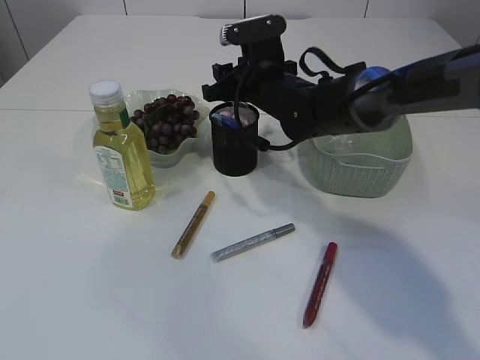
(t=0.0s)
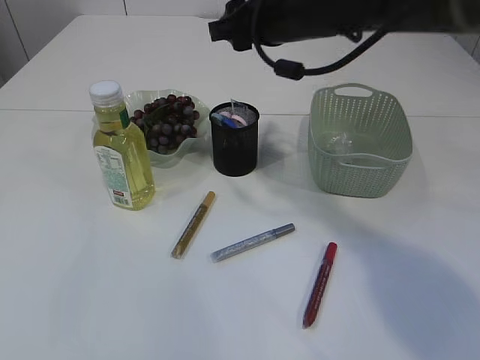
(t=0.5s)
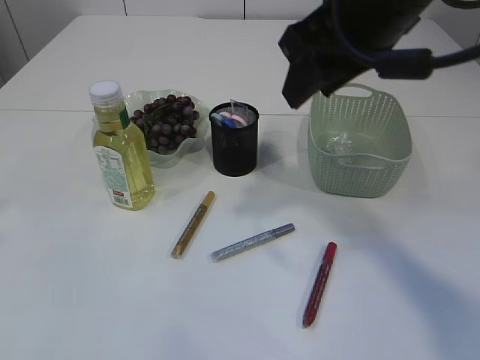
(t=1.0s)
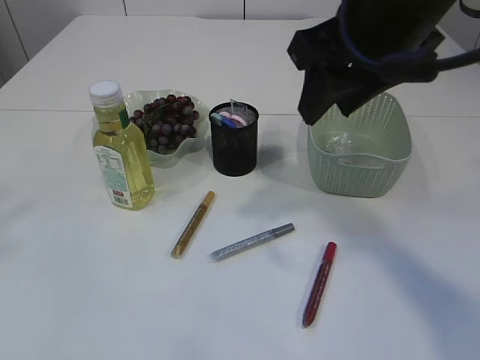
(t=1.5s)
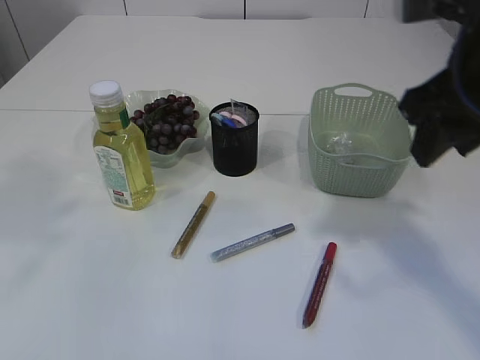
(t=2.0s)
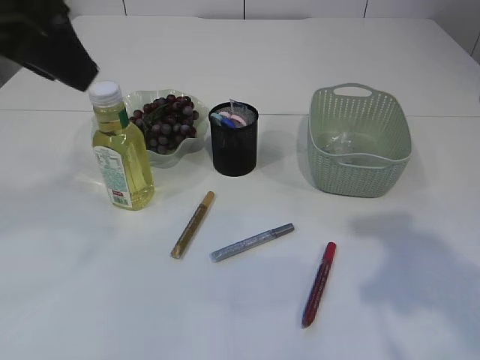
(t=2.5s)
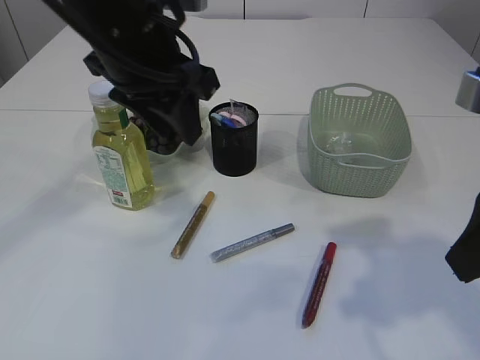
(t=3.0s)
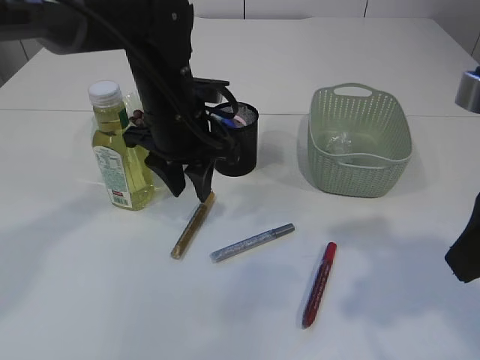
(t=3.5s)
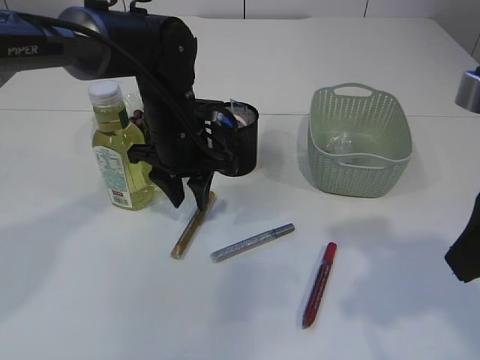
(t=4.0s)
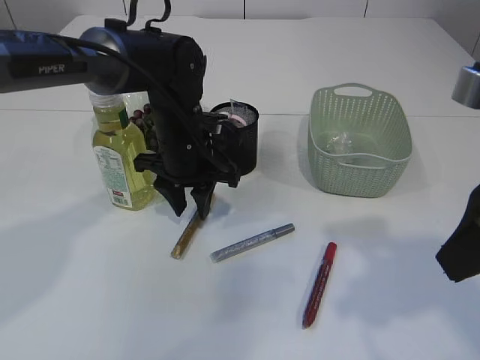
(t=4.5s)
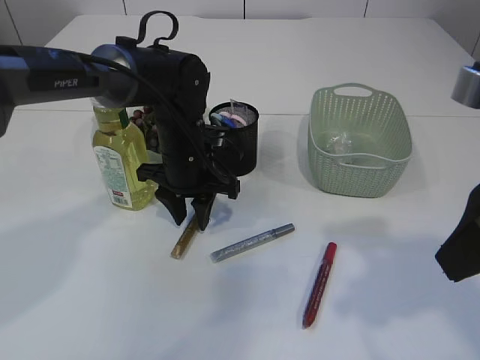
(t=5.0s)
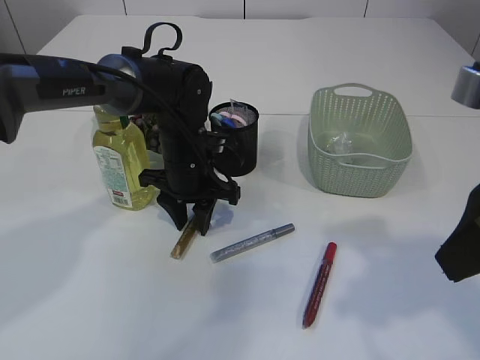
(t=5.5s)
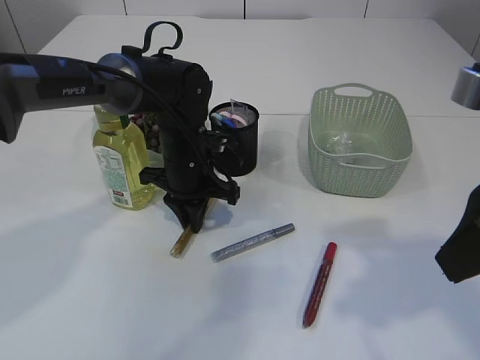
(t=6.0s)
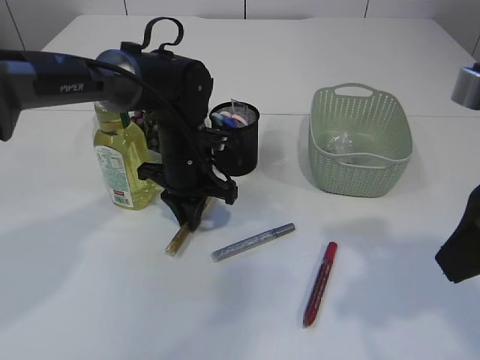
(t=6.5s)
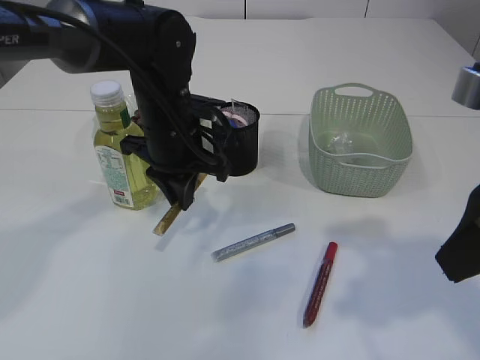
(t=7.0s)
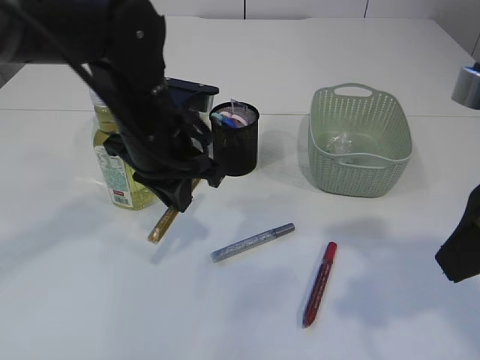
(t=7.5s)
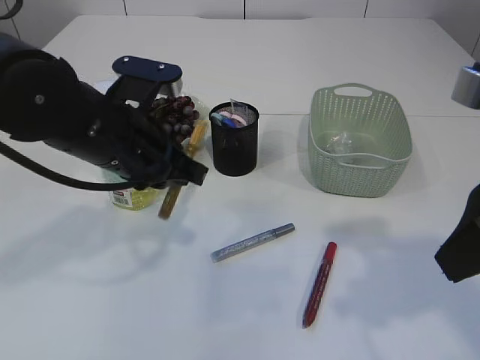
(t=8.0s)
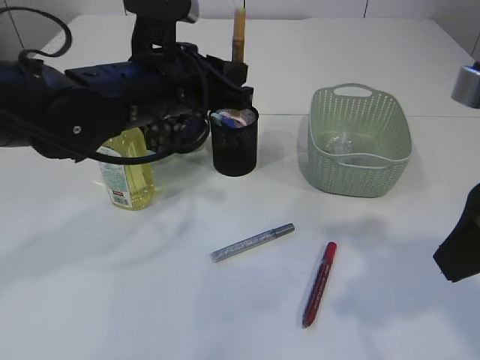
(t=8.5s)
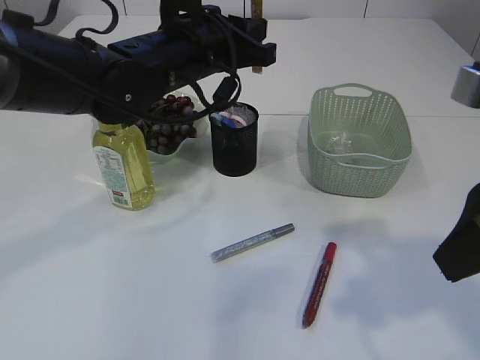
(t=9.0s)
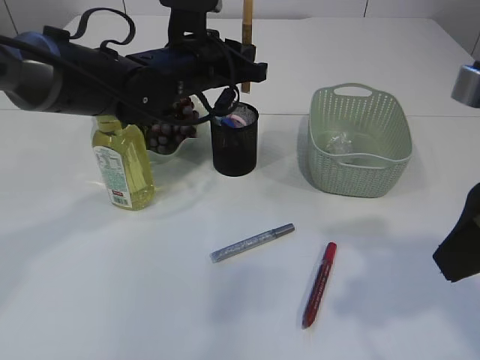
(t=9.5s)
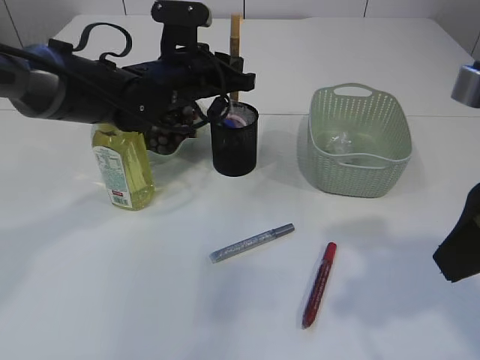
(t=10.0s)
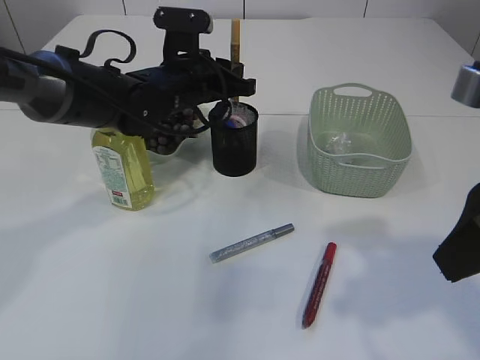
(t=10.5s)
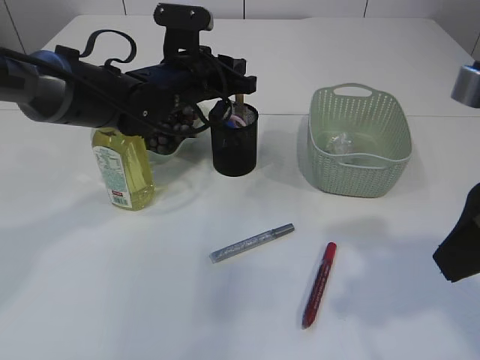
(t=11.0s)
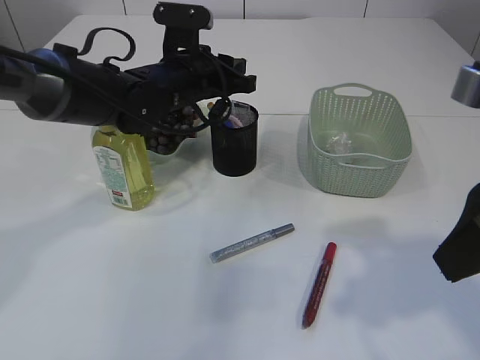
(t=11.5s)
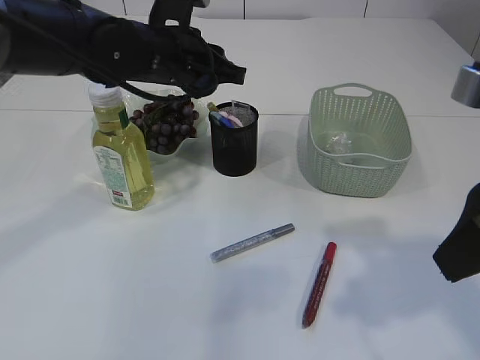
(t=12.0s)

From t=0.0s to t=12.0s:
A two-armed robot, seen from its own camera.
Step, from t=0.5s to t=6.5s: pick up the yellow glue.
Step, from t=7.0s to t=11.5s: place the yellow glue into the pen holder.
From t=0.0s to t=2.0s: The left gripper goes approximately 5 cm to the right, while the right gripper heads backward, upward and to the right, covering about 30 cm.
From t=2.0s to t=4.0s: The right gripper moves backward, approximately 10 cm. Meanwhile the left gripper heads downward, forward and to the right, covering roughly 35 cm.
From t=4.0s to t=6.0s: The left gripper moves downward, some 5 cm, and closes up.
From t=6.0s to t=8.0s: The left gripper goes approximately 15 cm backward and upward.
From t=8.0s to t=10.0s: The left gripper goes some 15 cm forward.
From t=10.0s to t=12.0s: The grippers make only small movements.

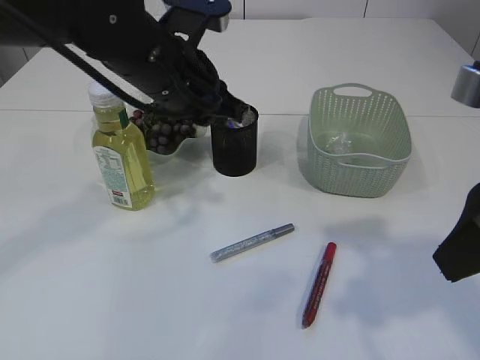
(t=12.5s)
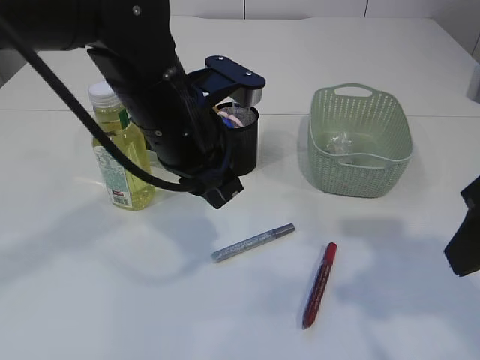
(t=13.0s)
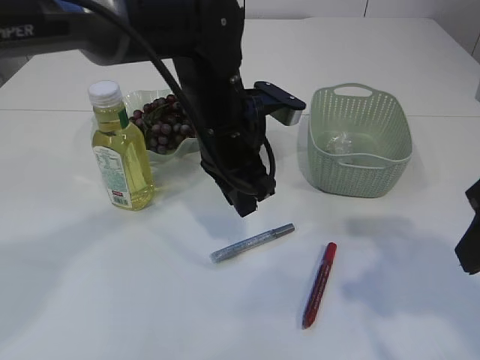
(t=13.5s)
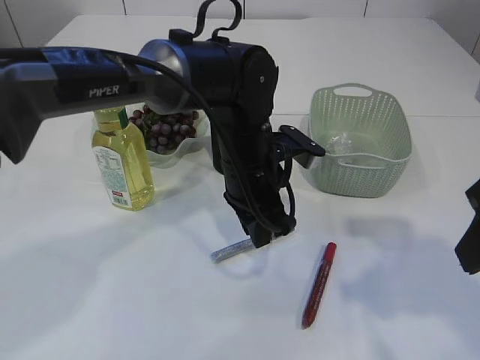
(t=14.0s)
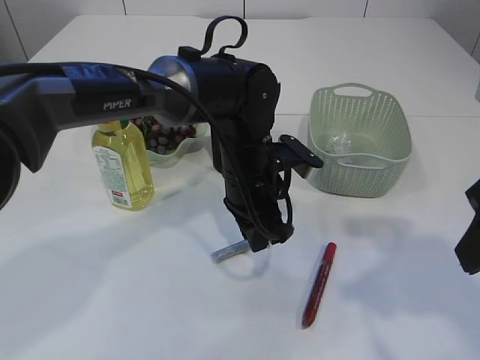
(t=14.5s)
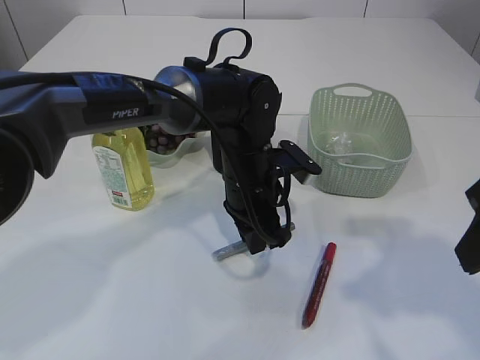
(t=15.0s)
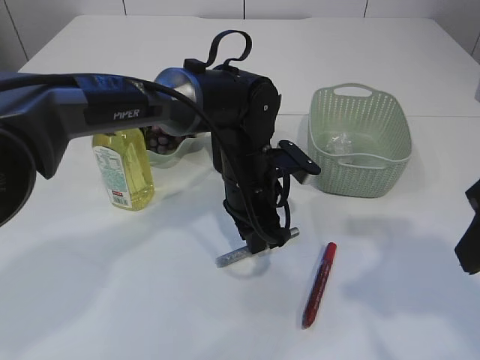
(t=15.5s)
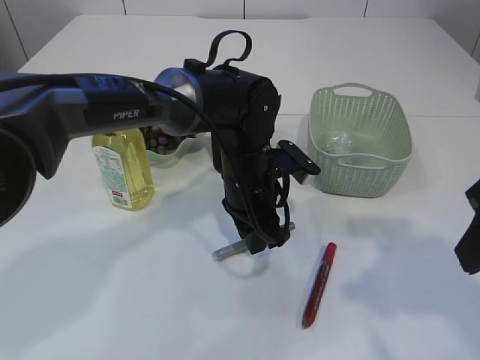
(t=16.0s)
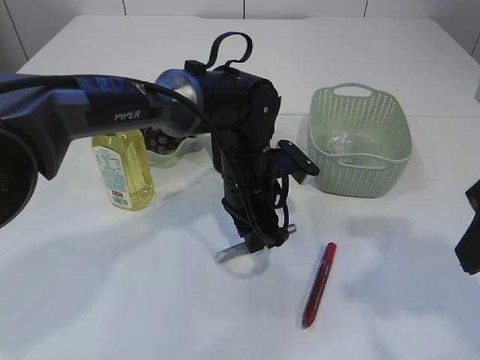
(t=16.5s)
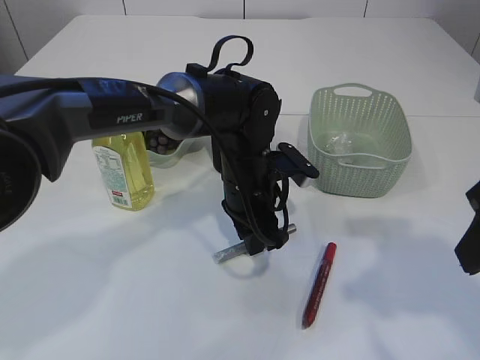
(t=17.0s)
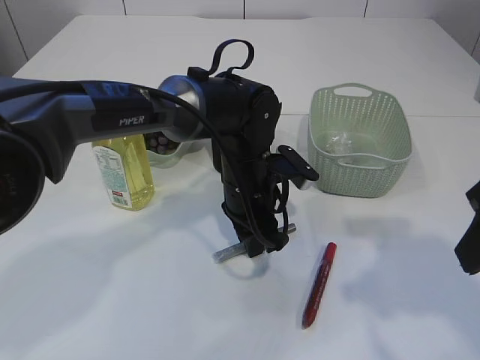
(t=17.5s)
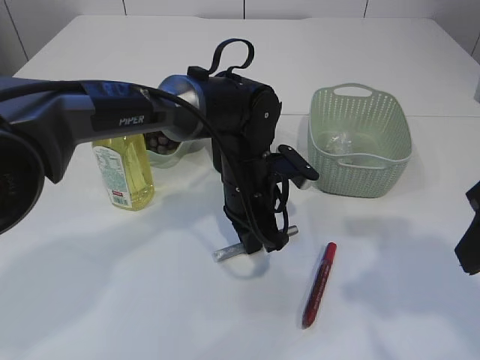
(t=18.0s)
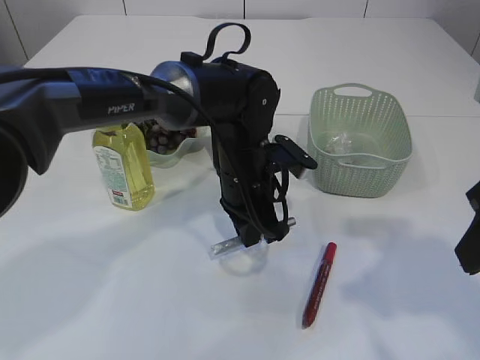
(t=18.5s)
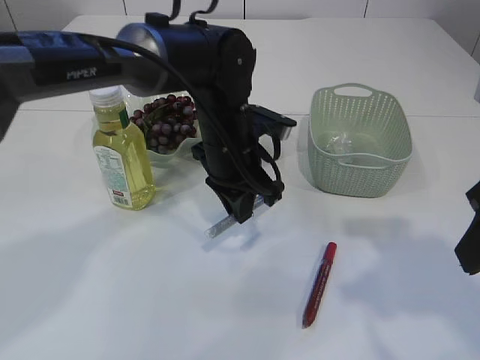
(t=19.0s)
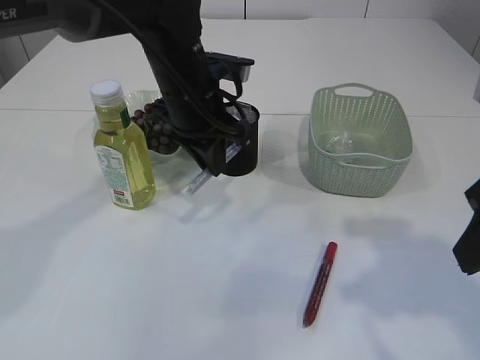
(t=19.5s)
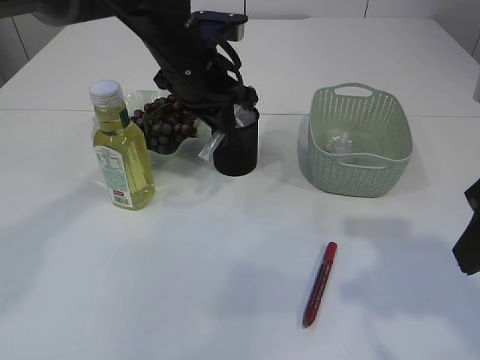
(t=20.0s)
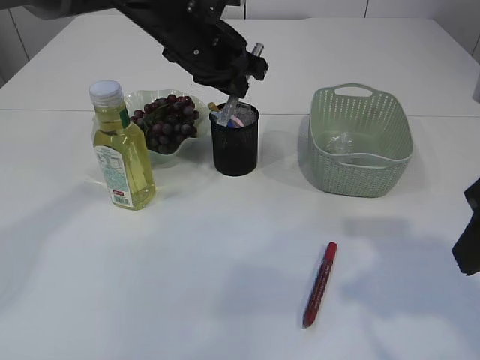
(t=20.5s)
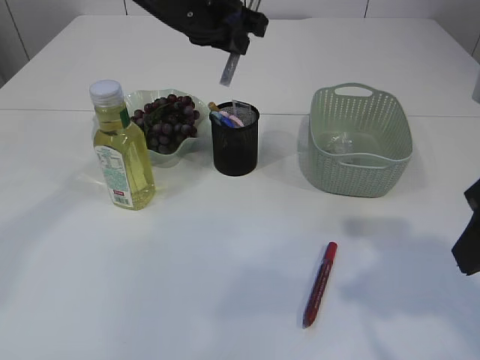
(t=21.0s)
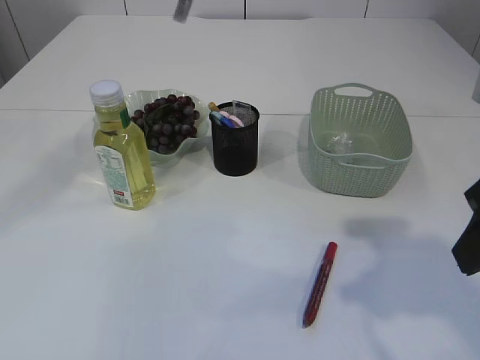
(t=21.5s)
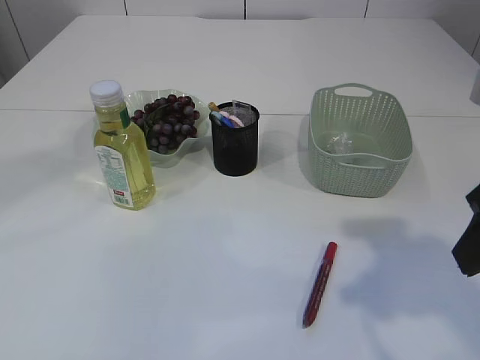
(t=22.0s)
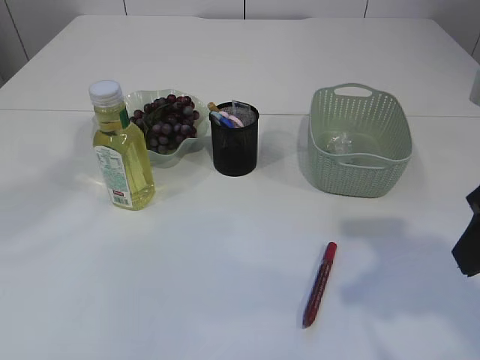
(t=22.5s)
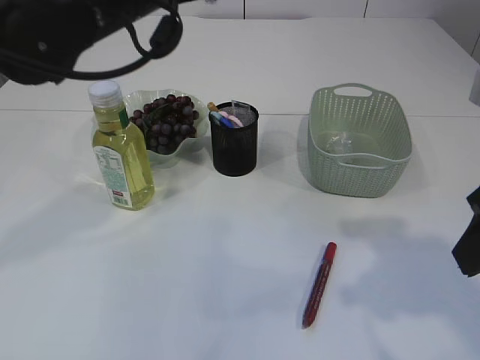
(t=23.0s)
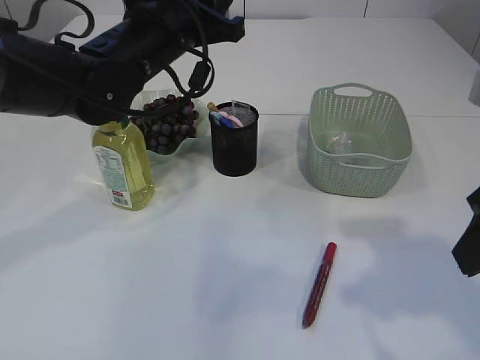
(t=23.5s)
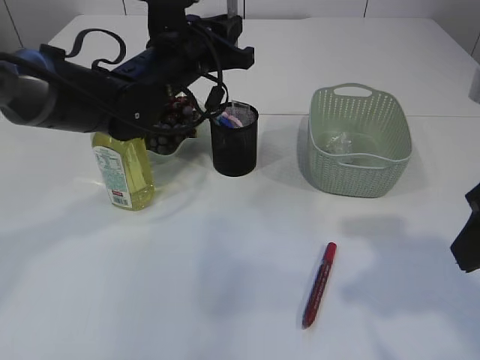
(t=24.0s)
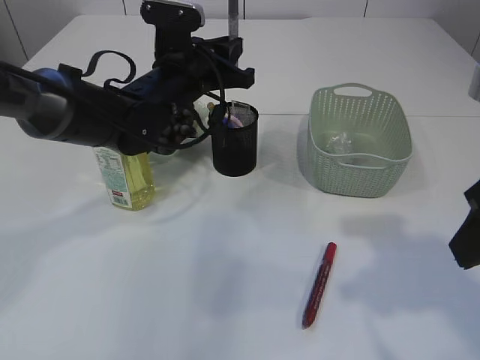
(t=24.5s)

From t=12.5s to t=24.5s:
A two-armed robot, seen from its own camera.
Step, from t=12.5s to t=19.0s: pick up the silver glue.
From t=12.5s to t=14.5s: The left gripper heads downward and to the right, covering some 15 cm.
From t=14.5s to t=16.5s: The grippers make only small movements.
From t=16.5s to t=18.5s: The two grippers keep their place.
From t=18.5s to t=20.5s: The left gripper travels upward, forward and to the left by roughly 15 cm.
From t=20.5s to t=22.5s: The left gripper is displaced upward, backward and to the left by about 25 cm.
From t=22.5s to t=24.5s: The left gripper shifts approximately 25 cm downward and forward.

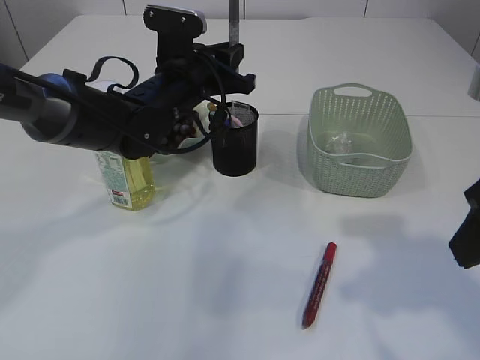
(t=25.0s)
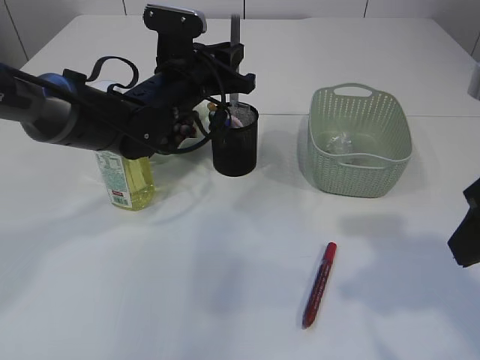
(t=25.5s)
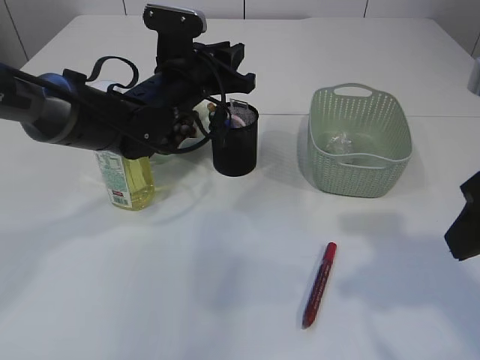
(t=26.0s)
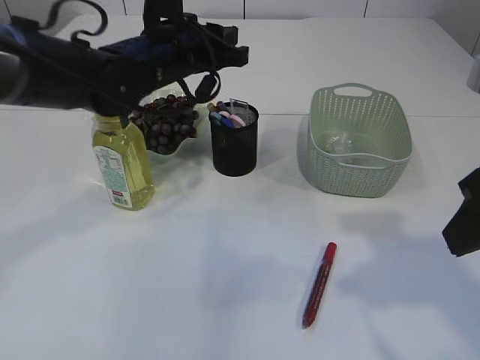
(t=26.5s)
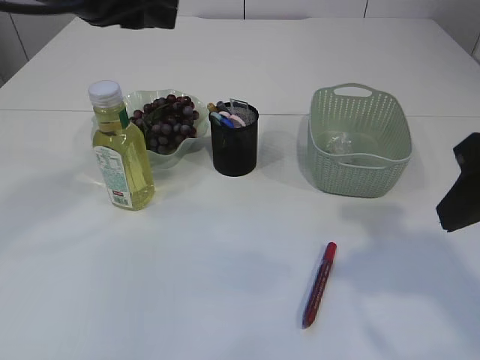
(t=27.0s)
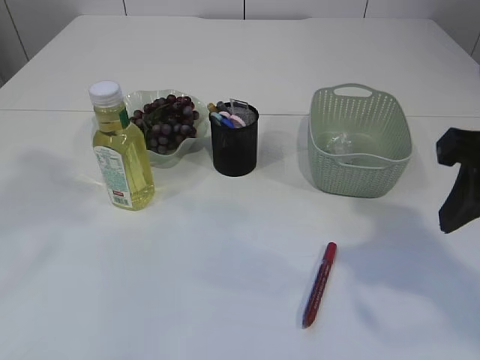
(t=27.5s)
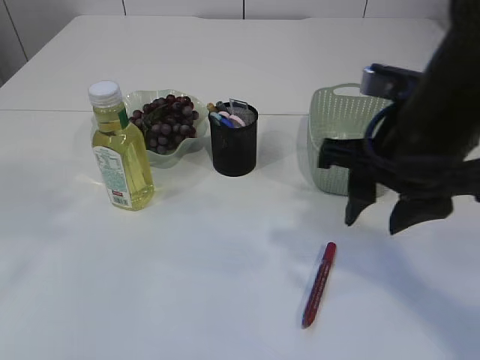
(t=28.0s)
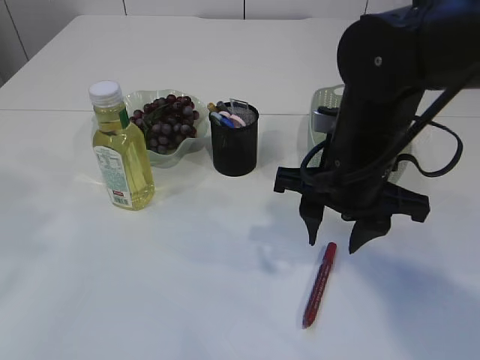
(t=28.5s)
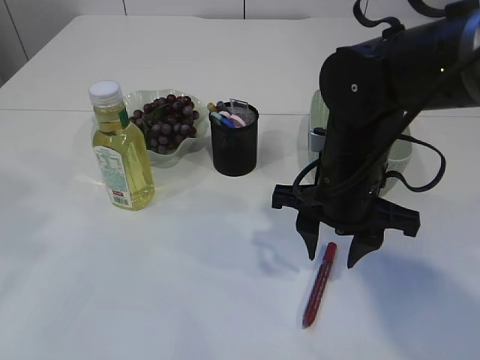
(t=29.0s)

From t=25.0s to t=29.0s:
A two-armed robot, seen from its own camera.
From t=25.0s to t=27.0s: The left gripper moves upward and backward, some 20 cm.
From t=27.0s to t=29.0s: The left gripper travels backward, to the left and upward by roughly 20 cm. The right gripper goes about 20 cm downward, to the left and forward.
